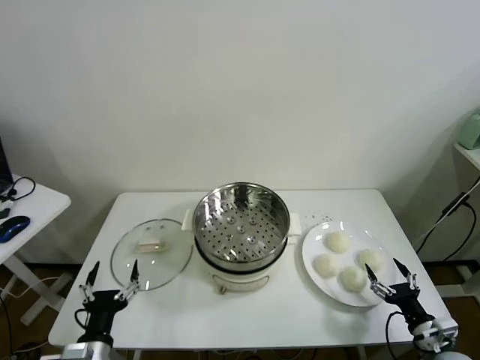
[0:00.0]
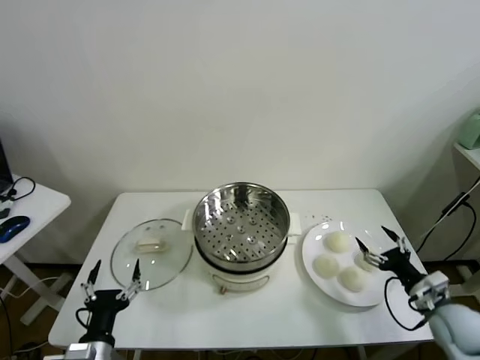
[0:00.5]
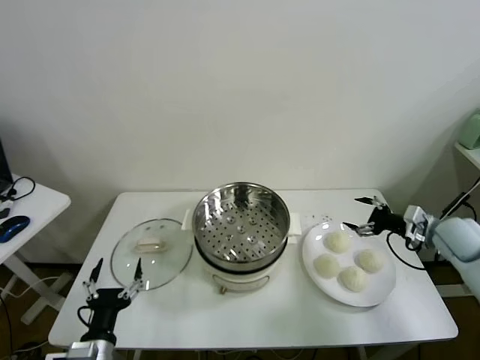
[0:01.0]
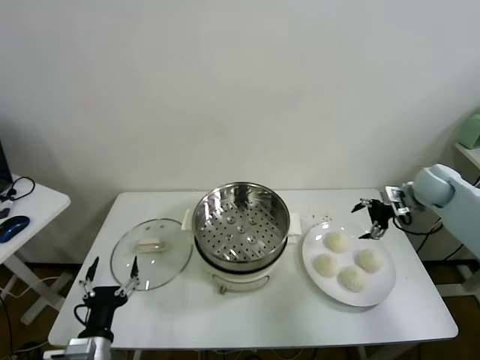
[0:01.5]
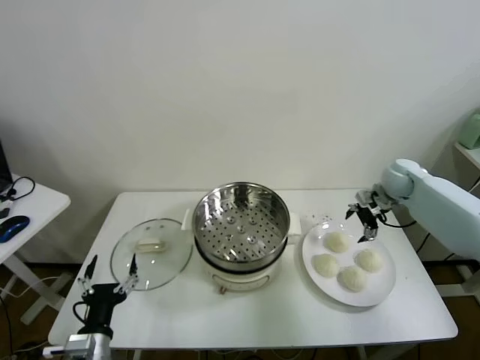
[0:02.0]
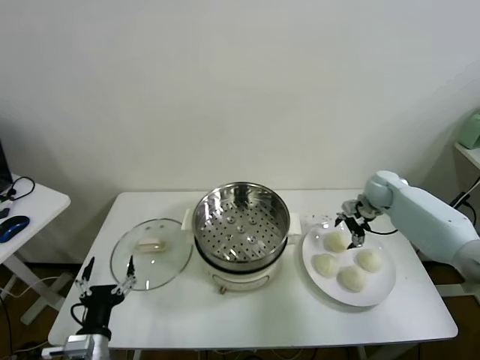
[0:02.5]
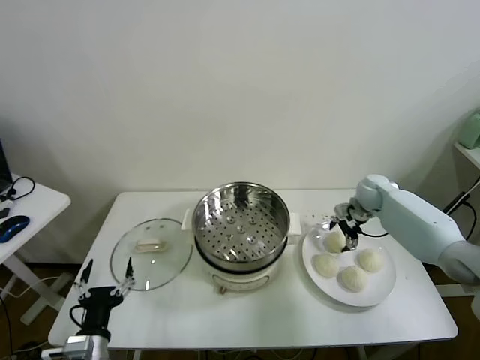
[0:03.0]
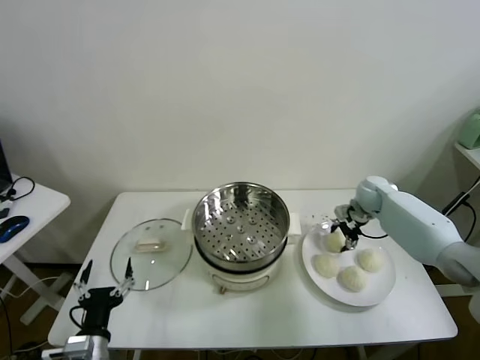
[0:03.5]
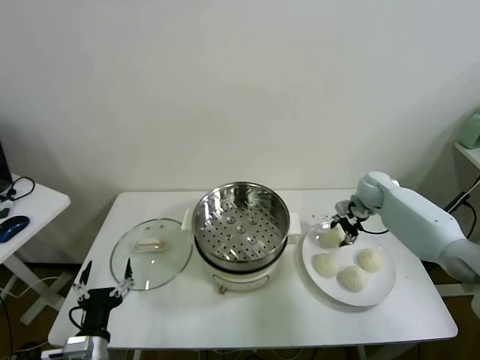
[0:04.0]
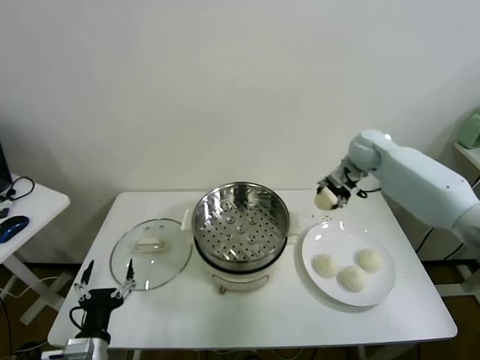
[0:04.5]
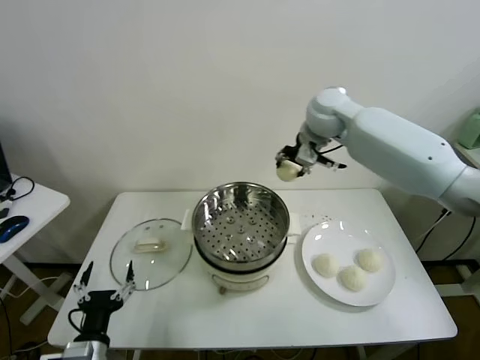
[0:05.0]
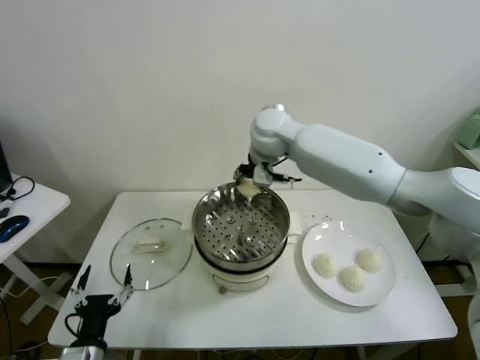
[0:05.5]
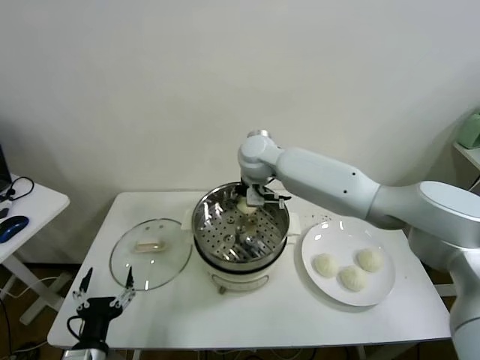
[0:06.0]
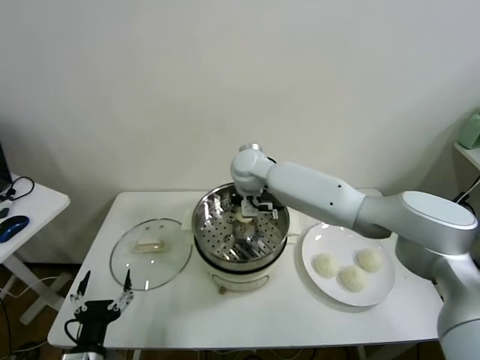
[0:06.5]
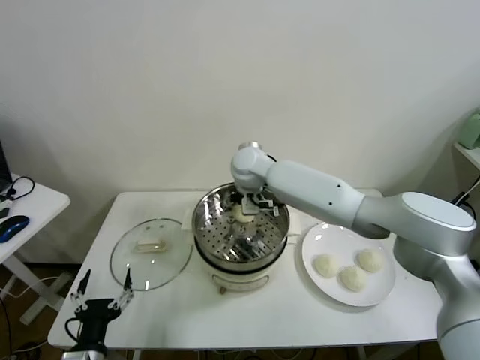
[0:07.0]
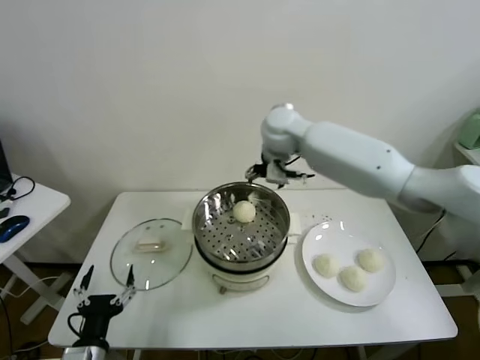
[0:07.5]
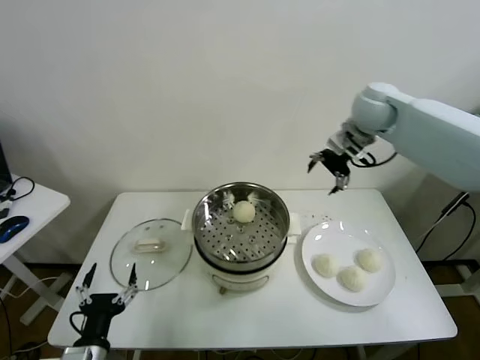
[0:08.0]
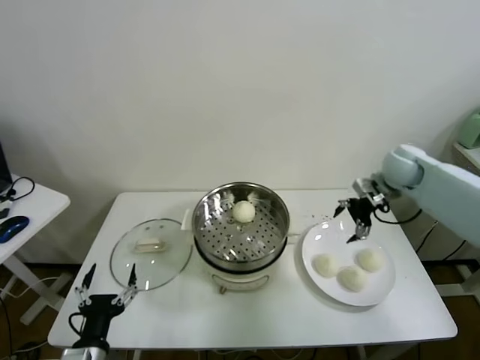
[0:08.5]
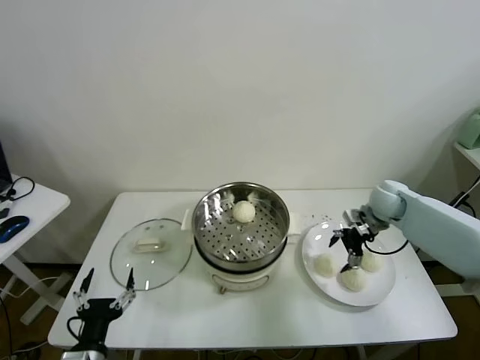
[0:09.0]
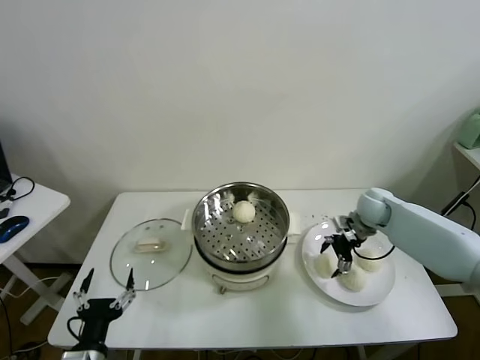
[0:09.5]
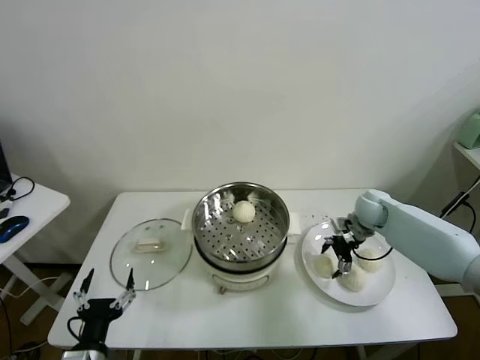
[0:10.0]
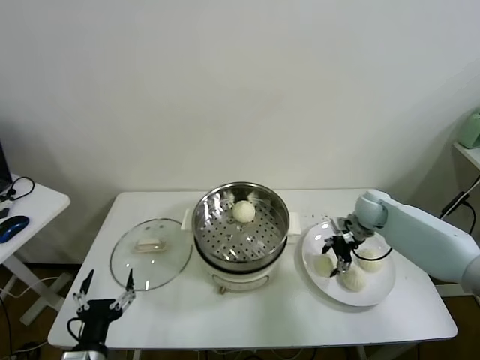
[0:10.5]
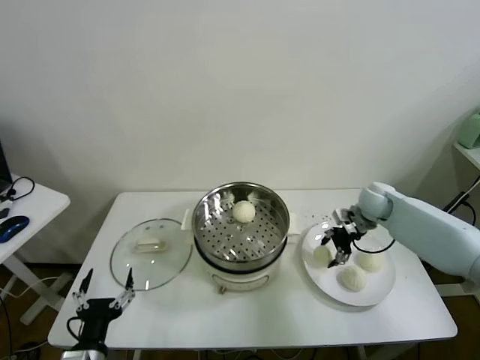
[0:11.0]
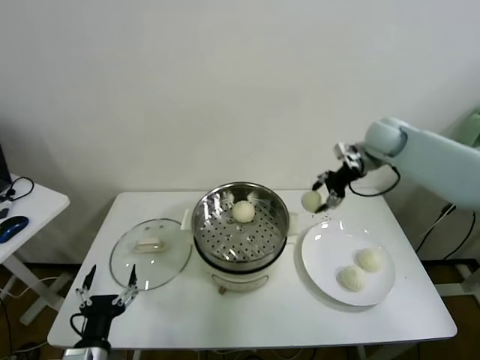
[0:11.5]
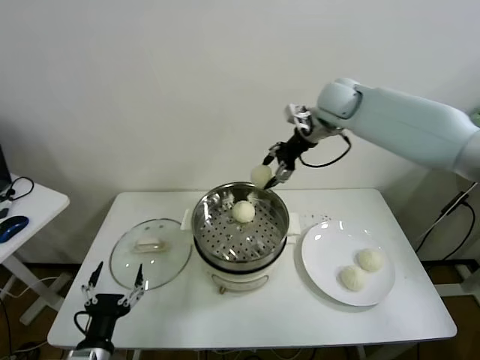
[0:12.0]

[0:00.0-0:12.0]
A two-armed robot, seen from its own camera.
Task of the whole recording: take steamed baozi put them in steamer.
Step, 0:00.0 to 0:03.5: Grasp the baozi in the plate with right gripper.
Step, 0:04.0 to 0:07.0: Place the baozi on the steamer with right gripper.
Step, 0:07.5 to 0:10.5: Grasp the baozi in the plate with right gripper.
0:02.0 to 0:04.0: The right gripper closes.
0:04.0 to 0:06.0: The right gripper goes some 35 cm to the left.
0:06.0 to 0:08.0: The right gripper travels to the right by approximately 30 cm, and opens.
0:08.0 to 0:10.0: The right gripper travels downward by some 25 cm.
0:10.0 to 0:12.0: The right gripper is displaced upward and to the left by approximately 30 cm, and closes up.

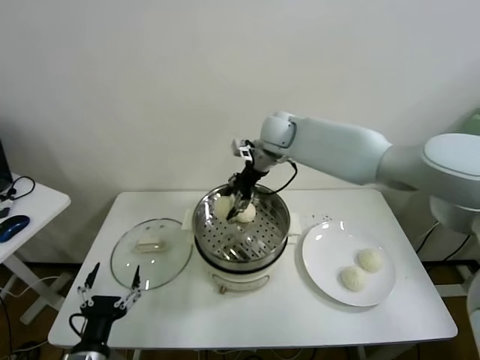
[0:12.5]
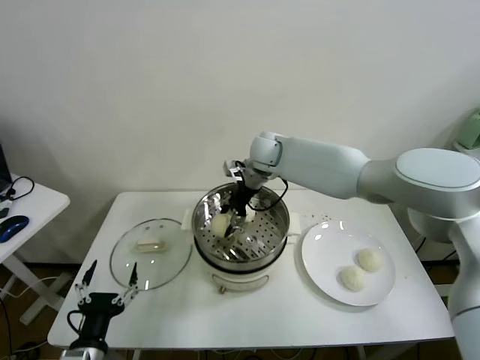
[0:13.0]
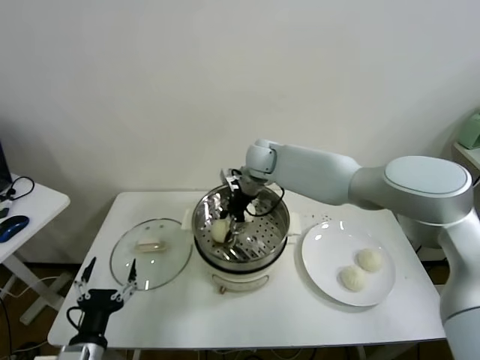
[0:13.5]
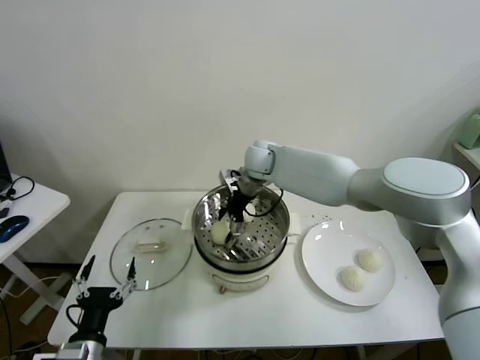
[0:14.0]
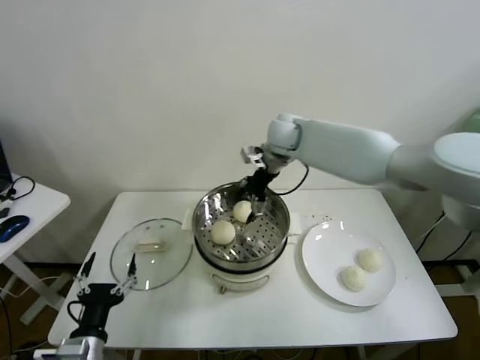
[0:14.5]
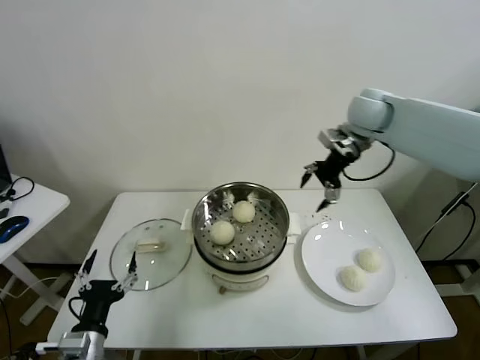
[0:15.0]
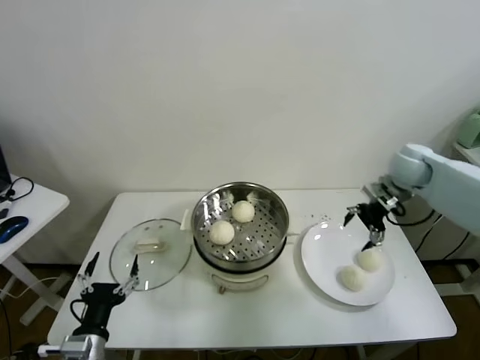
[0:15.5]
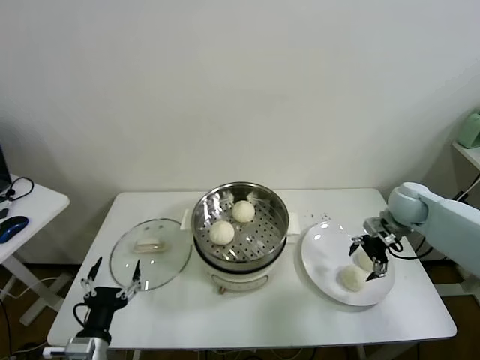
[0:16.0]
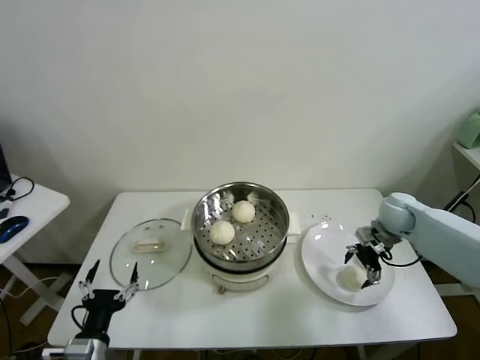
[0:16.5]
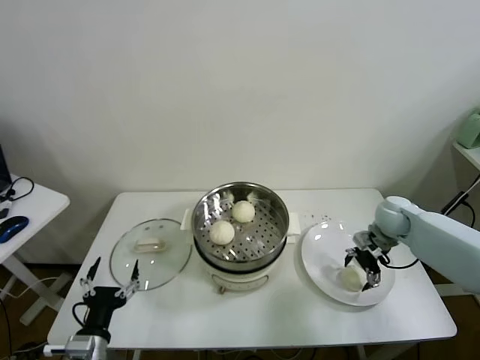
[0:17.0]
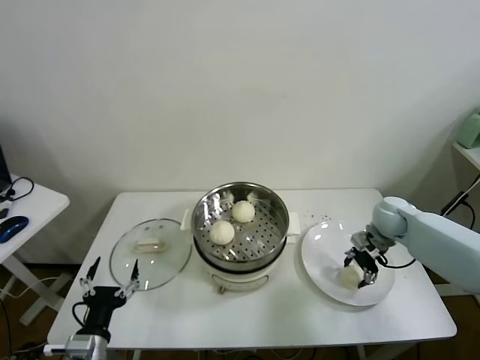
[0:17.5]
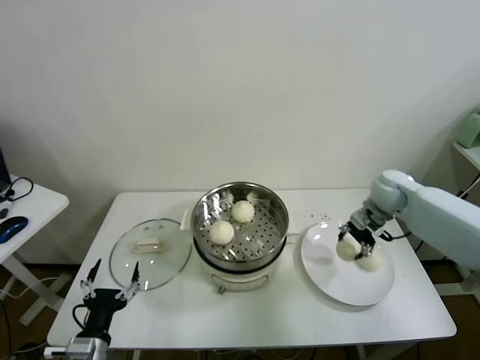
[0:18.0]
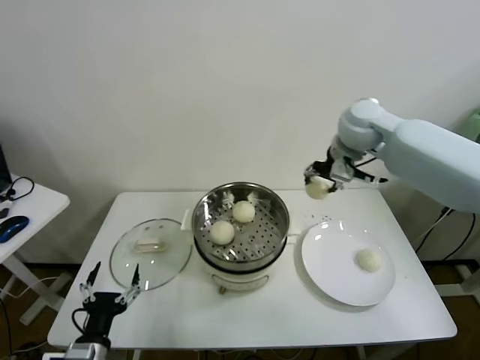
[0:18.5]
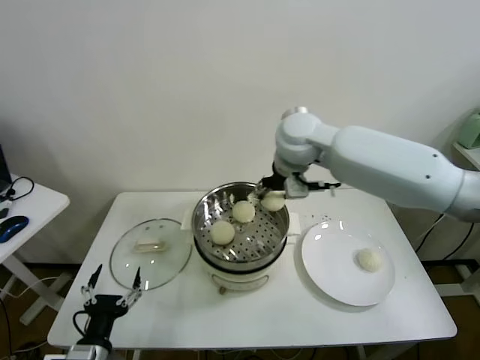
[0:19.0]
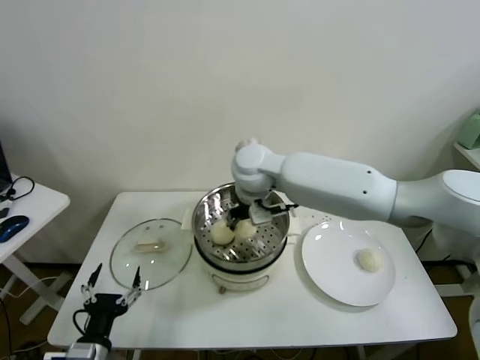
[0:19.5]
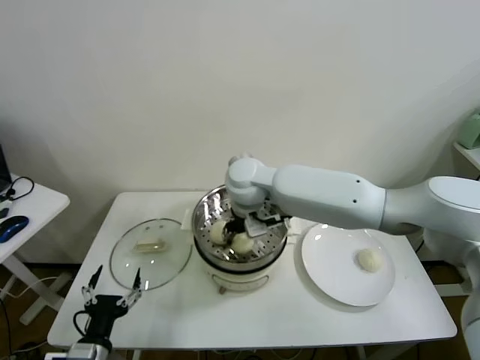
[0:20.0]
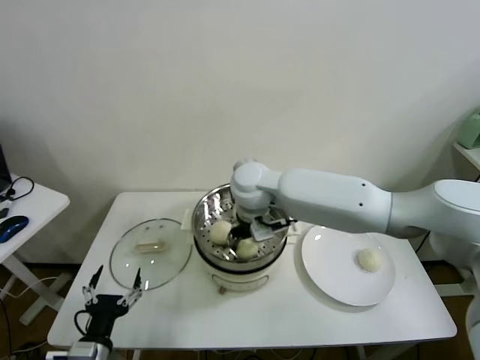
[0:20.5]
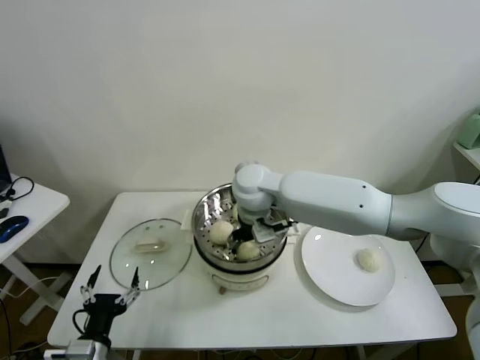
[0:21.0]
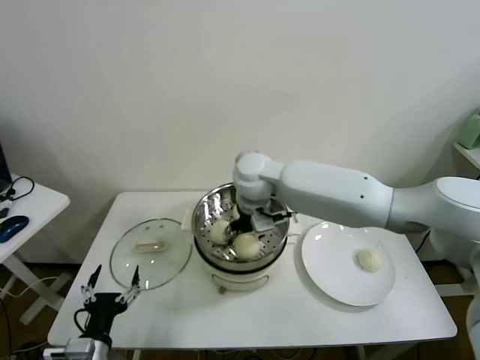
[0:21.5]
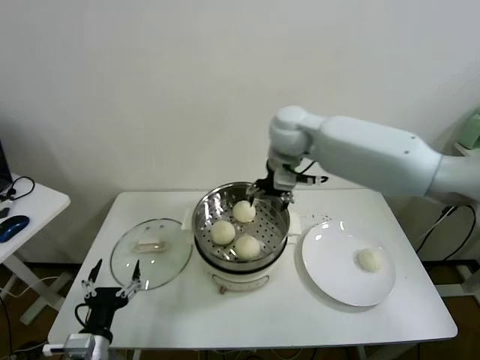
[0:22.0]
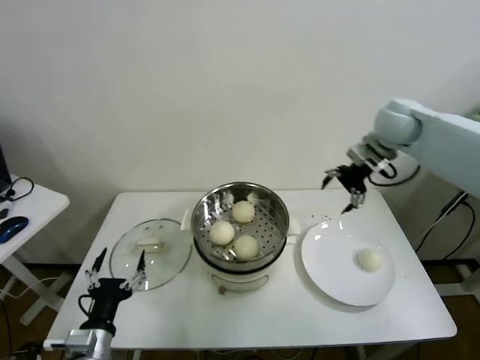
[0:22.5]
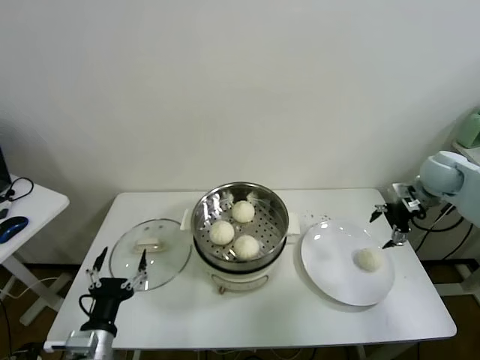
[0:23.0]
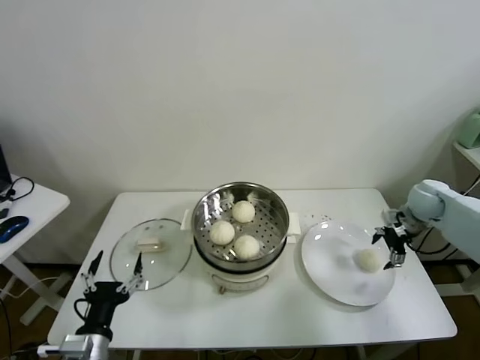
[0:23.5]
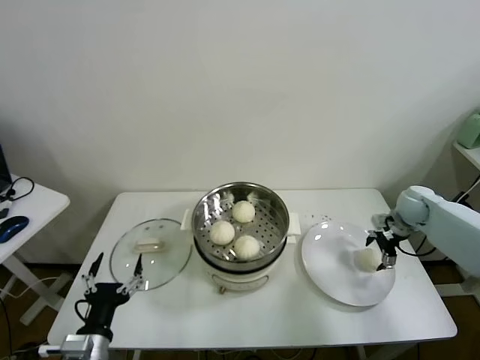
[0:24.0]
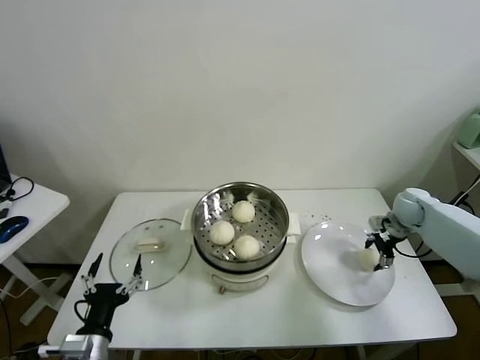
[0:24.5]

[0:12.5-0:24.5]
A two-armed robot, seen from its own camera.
Task of the whole recording: take steamed baozi put them in steamer.
Step, 0:14.5 to 0:17.5: Grasp the baozi in the plate with right gripper.
Step, 0:18.0 to 0:21.0: Place the baozi on the steamer with right gripper.
0:12.5 to 0:14.5: The right gripper reaches approximately 5 cm downward, then returns, and opens its fingers.
0:14.5 to 0:16.5: The right gripper shifts roughly 35 cm to the right and downward.
0:16.5 to 0:18.5: The right gripper is displaced upward and to the left by some 30 cm, and closes.
0:18.5 to 0:20.5: The right gripper heads to the left and downward, covering some 25 cm.
0:20.5 to 0:22.5: The right gripper is displaced to the right by some 30 cm, and opens.
0:22.5 to 0:24.5: The right gripper shifts some 25 cm downward and to the right, and closes up.

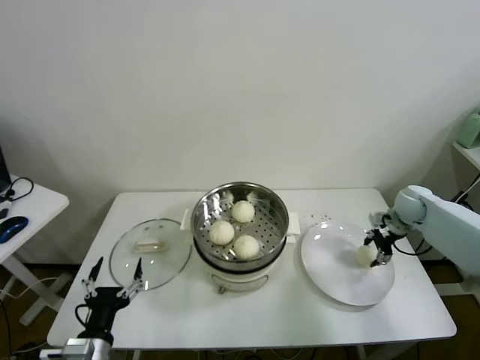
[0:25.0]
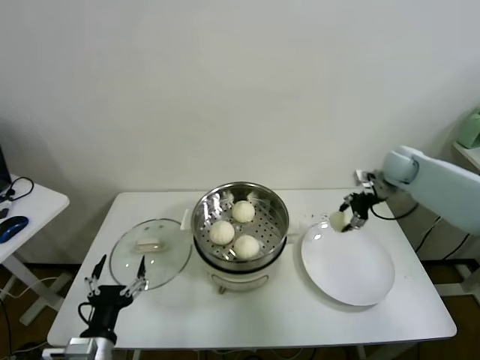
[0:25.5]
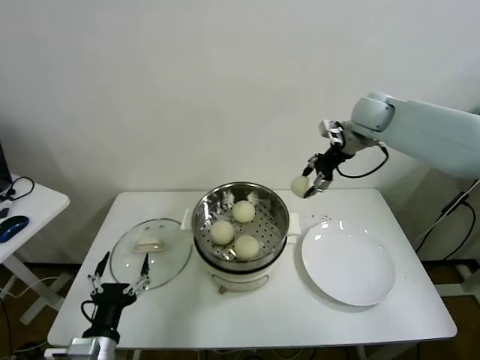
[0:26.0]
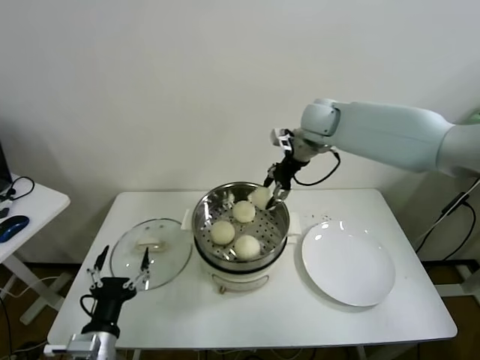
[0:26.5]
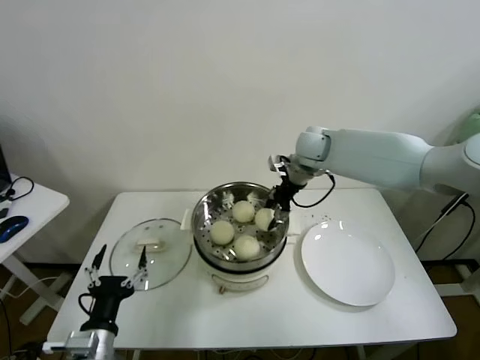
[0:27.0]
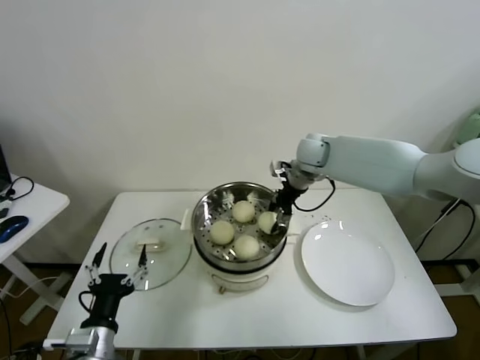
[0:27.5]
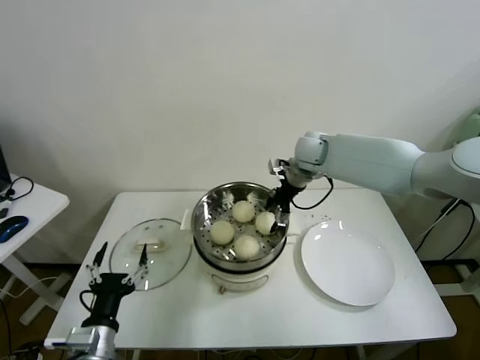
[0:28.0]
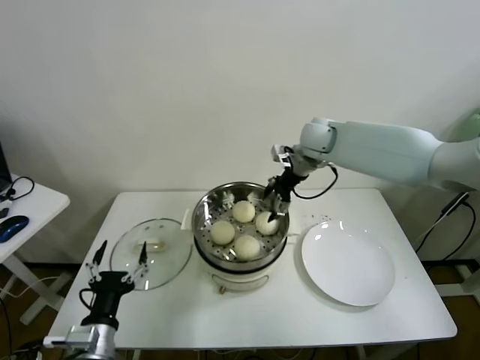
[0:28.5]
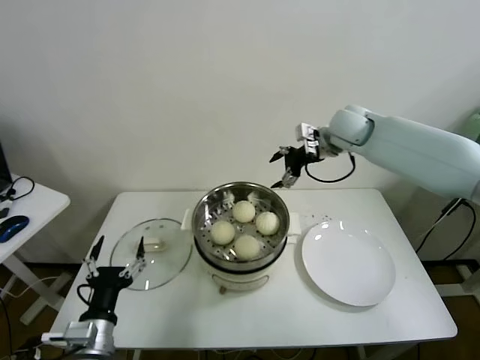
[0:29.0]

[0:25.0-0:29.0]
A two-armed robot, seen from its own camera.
Task of the whole recording: take steamed baozi put them in steamer.
Step, 0:25.0 to 0:28.0: Place the baozi on the steamer with right gripper.
0:25.0 to 0:27.0: The right gripper is displaced to the left and upward by roughly 30 cm.
0:27.0 to 0:29.0: The right gripper moves to the right and upward, approximately 10 cm, and opens up.
